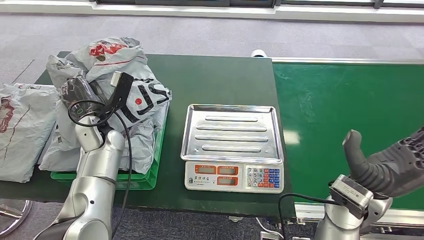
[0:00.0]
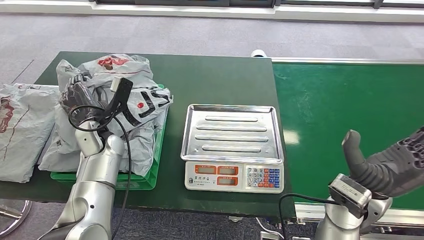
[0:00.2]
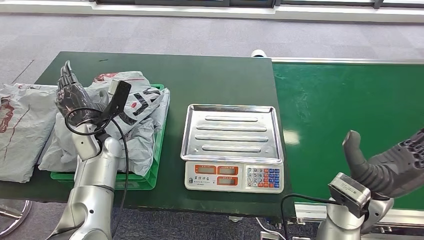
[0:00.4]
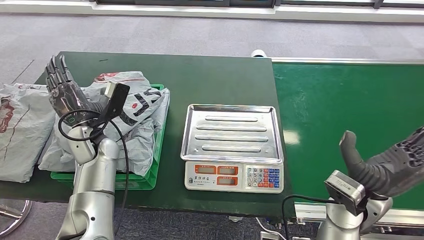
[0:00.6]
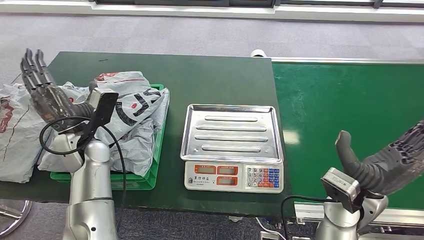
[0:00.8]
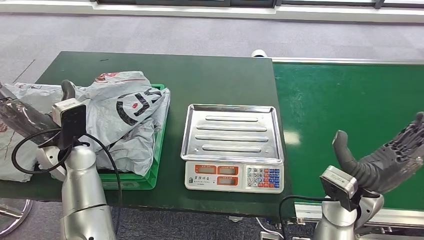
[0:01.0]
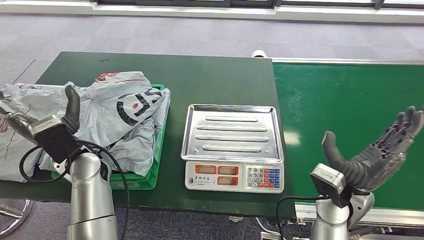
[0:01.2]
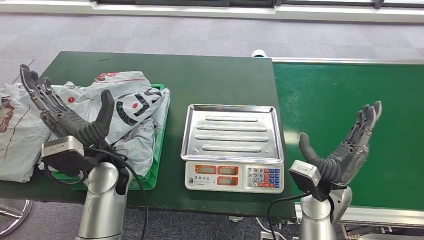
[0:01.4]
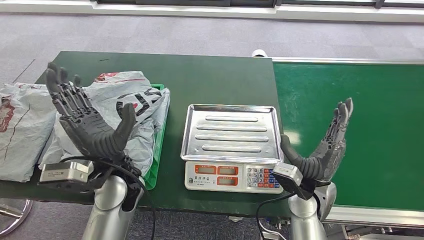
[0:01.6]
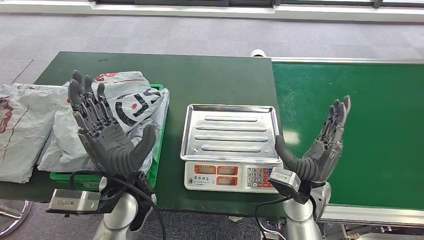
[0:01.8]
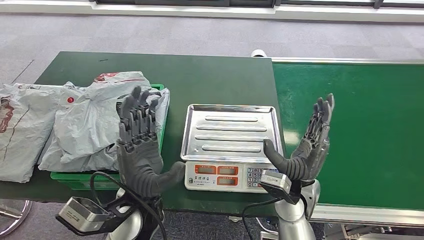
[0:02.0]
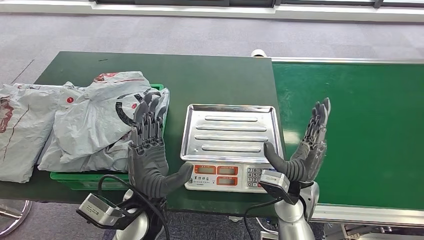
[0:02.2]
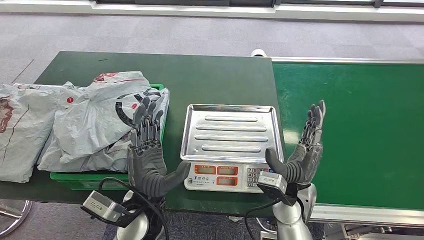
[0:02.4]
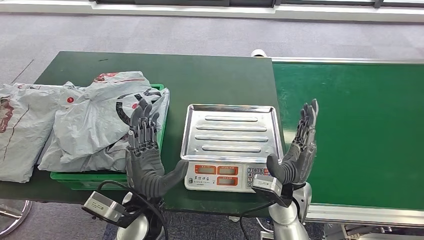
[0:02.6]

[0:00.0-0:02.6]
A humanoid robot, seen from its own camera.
Step, 0:00.0 to 0:02.6: Place the parcel into the delivery box.
